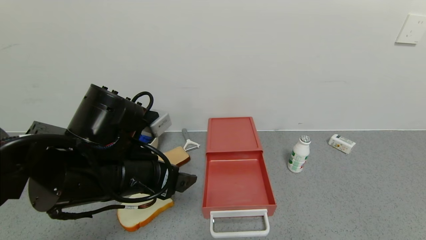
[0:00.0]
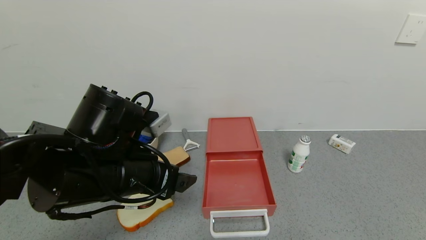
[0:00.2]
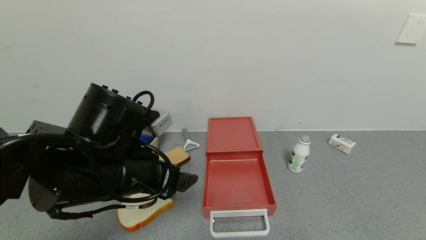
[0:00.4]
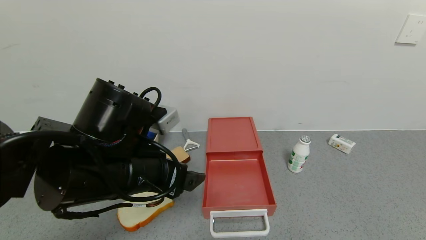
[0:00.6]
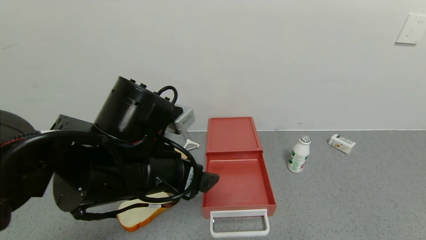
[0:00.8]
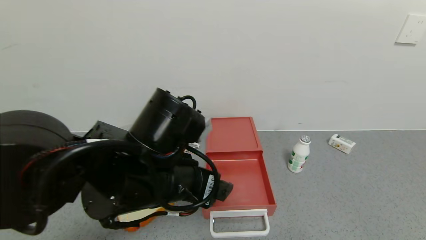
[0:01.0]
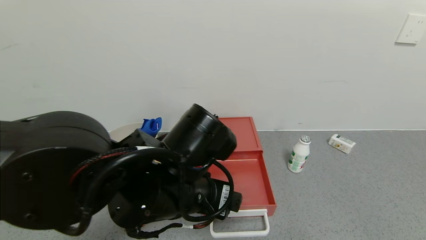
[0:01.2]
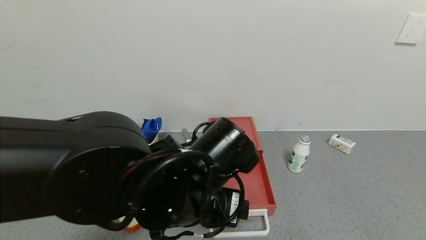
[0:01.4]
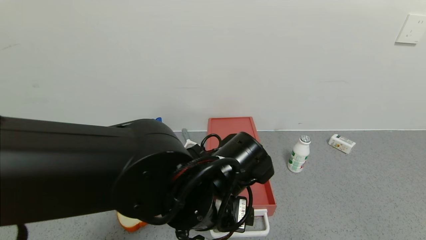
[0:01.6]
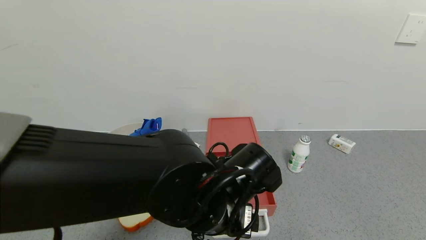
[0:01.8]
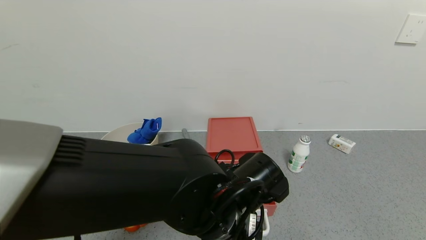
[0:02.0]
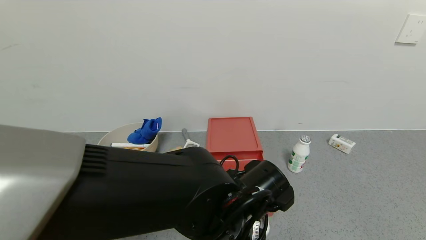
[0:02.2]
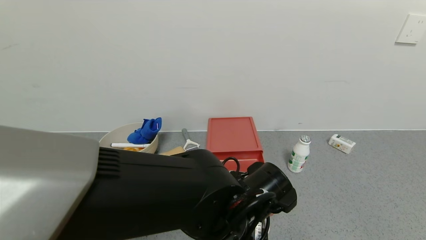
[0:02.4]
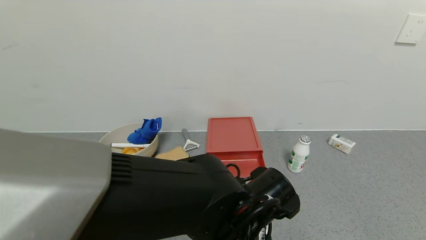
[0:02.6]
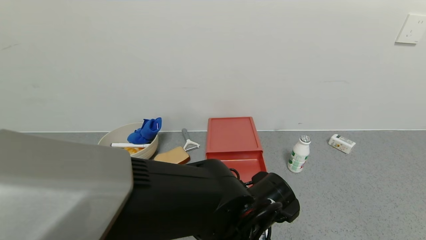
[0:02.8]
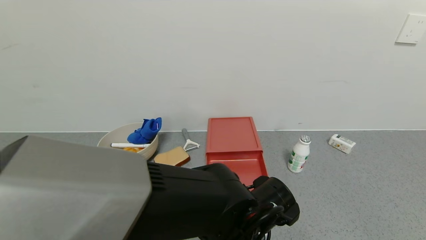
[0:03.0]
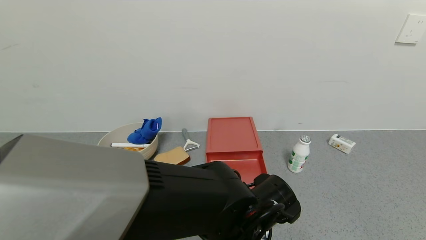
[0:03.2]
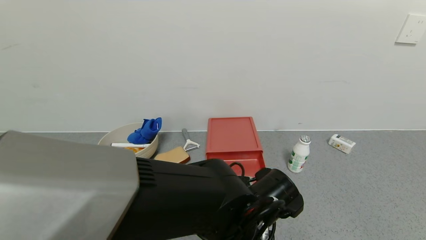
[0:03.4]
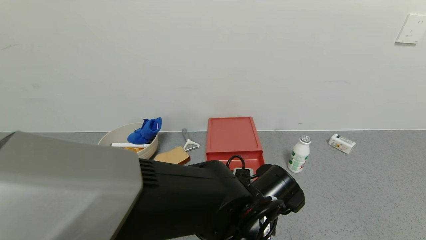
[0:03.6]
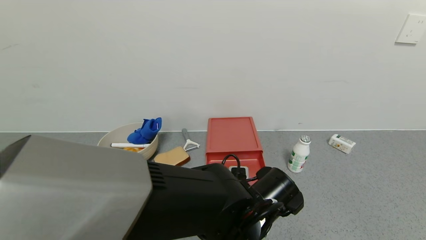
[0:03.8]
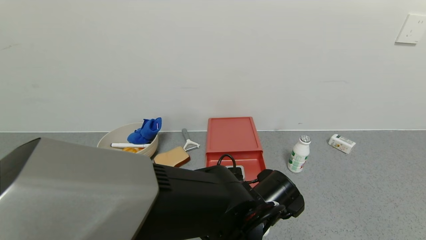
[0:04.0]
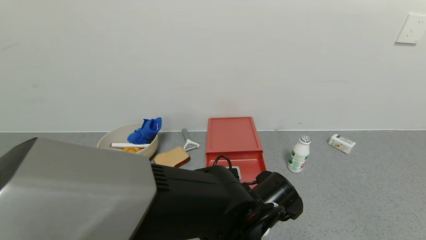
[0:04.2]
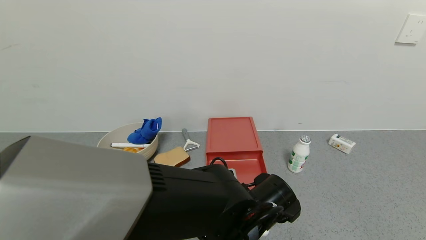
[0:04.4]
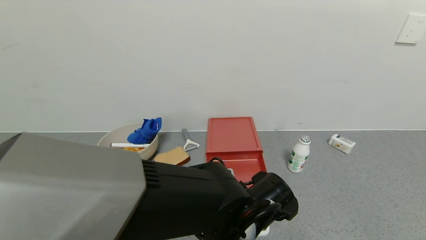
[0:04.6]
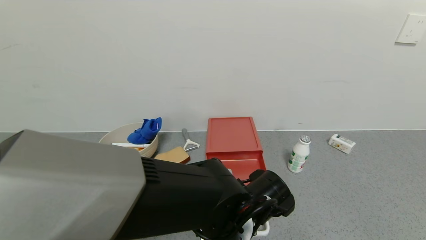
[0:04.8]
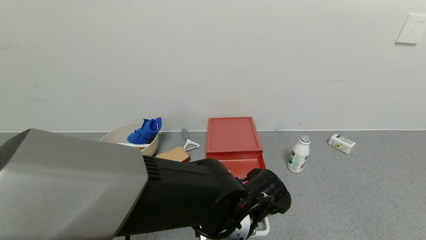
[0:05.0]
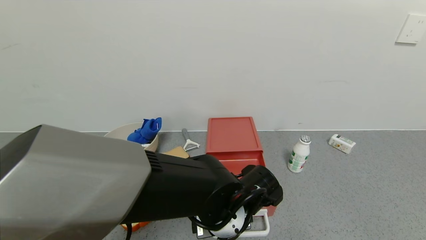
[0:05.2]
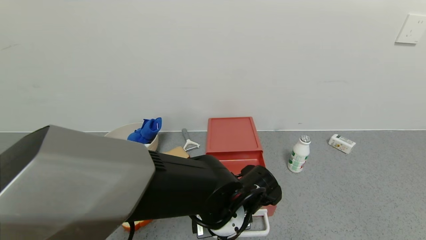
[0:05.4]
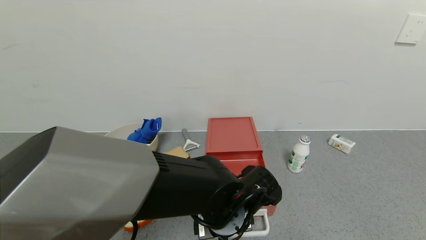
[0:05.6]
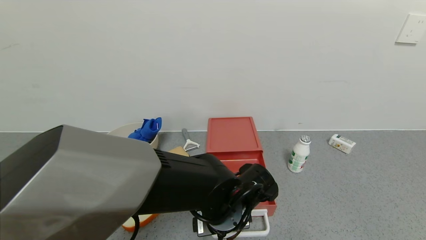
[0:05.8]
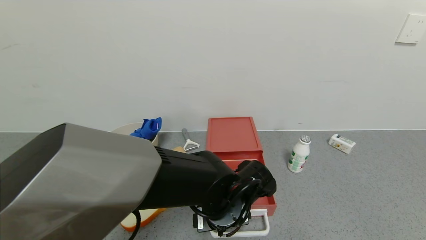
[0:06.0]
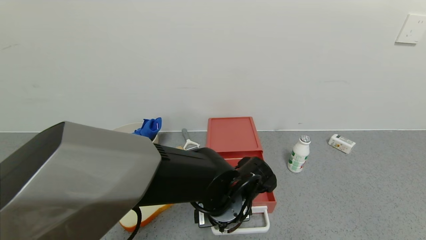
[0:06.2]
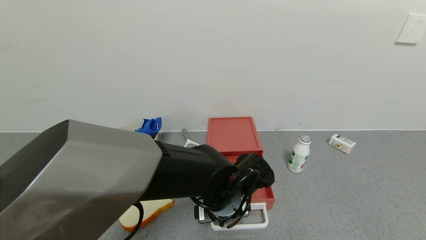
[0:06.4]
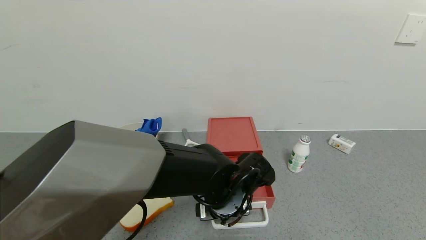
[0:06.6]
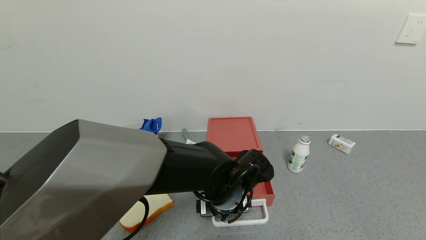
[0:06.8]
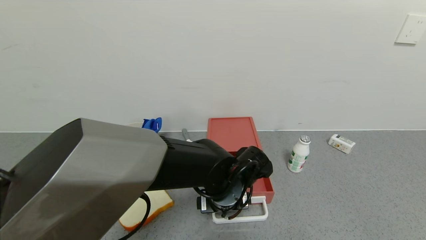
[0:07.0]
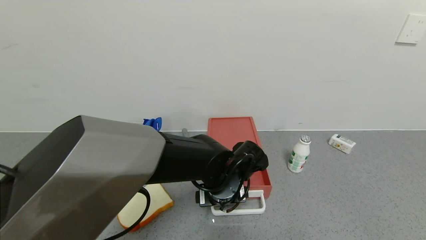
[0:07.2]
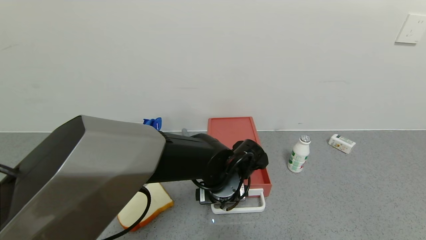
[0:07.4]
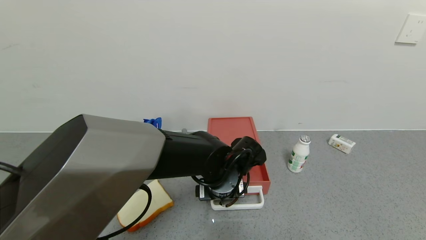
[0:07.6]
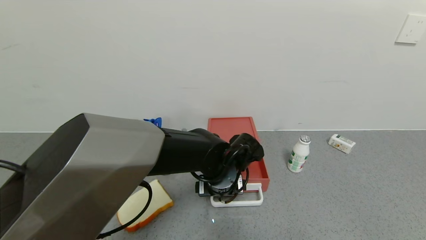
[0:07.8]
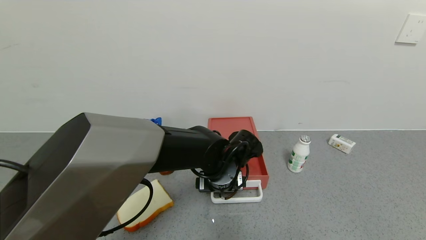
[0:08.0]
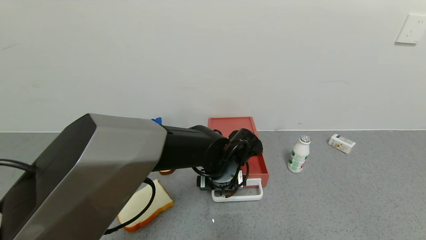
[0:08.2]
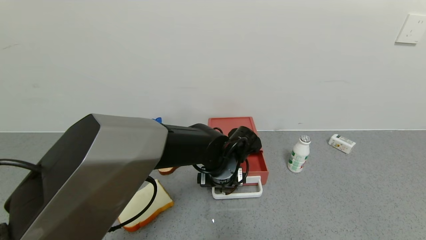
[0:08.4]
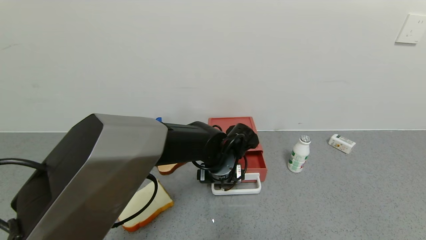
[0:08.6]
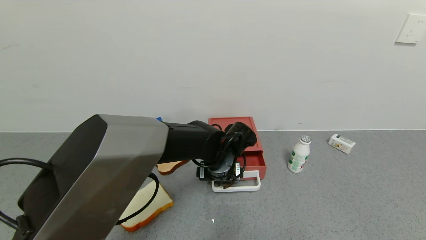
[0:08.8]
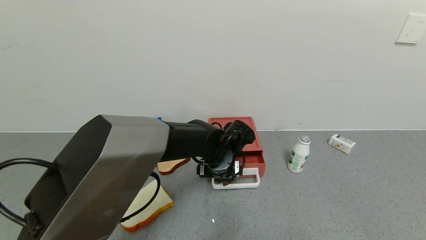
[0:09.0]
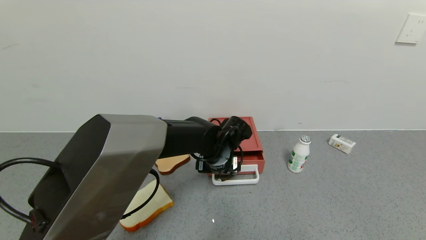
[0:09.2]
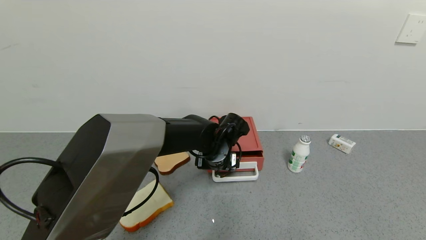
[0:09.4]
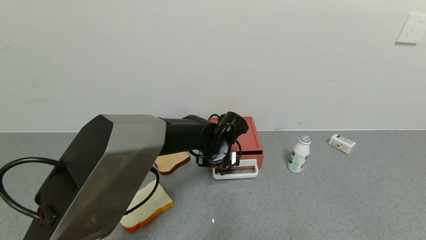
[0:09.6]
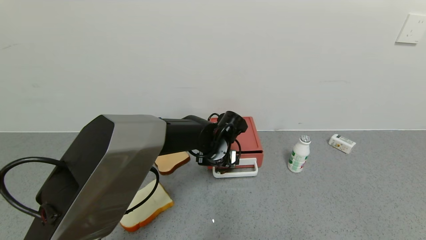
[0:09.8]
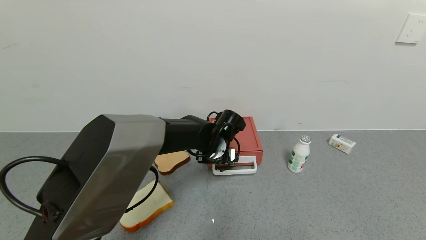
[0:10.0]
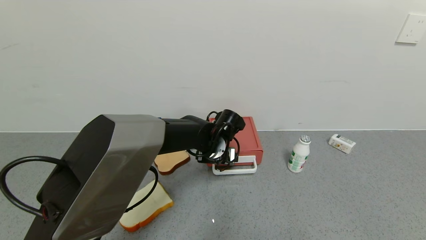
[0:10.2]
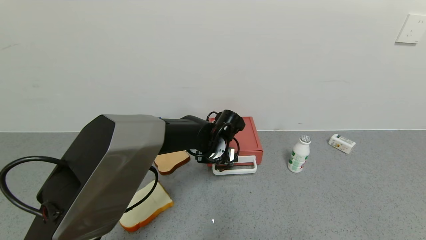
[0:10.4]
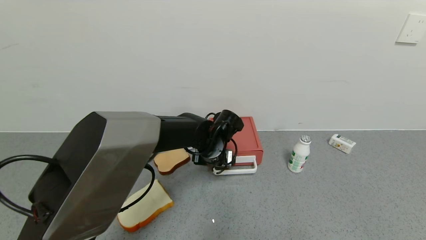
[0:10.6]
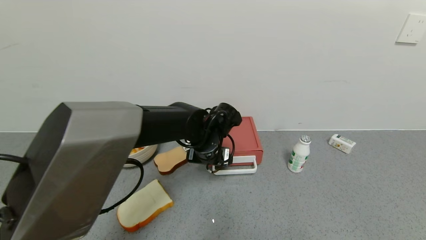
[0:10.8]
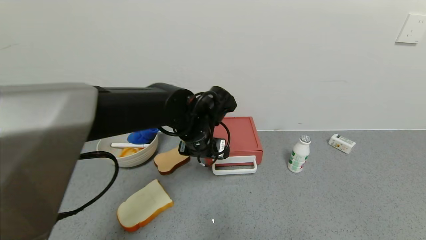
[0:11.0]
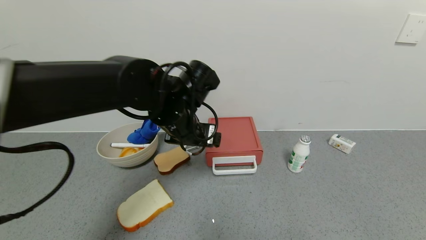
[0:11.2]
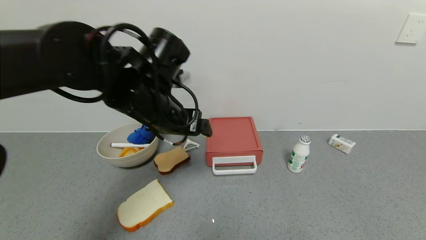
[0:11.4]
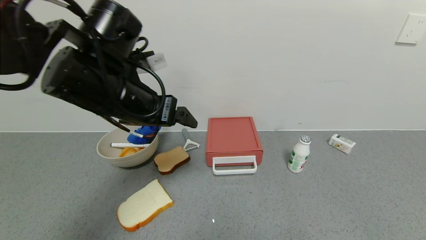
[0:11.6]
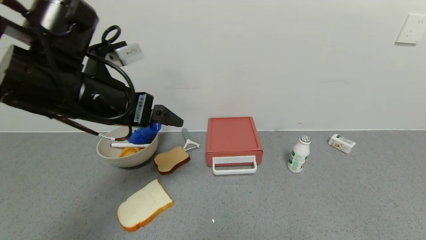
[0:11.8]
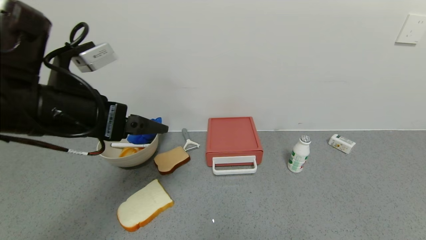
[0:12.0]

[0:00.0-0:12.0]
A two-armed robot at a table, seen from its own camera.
Task of the whole recording: use the gripper to open the drawer and close the red drawer.
Step, 0:00.0 to 0:10.6: Close the red drawer with the left gripper.
0:00.0 to 0:01.6: The left gripper goes approximately 10 cm to the right.
0:01.6 to 0:03.0: The left gripper travels downward by some 5 cm.
0:04.4 to 0:06.0: The grippers make only small movements.
0:06.0 to 0:07.6: The left gripper goes about 5 cm forward.
0:07.6 to 0:09.0: The left gripper is displaced forward by some 5 cm.
0:09.0 to 0:10.4: There are only small adjustments of the grippers.
0:10.4 to 0:12.0: The left gripper shifts some 30 cm to the left, upward and backward.

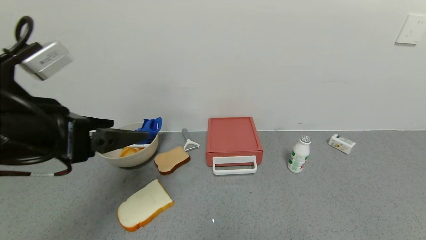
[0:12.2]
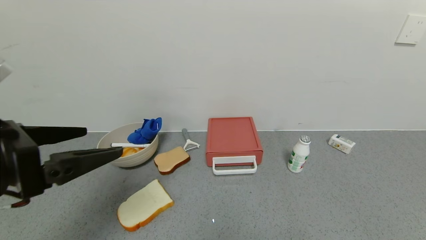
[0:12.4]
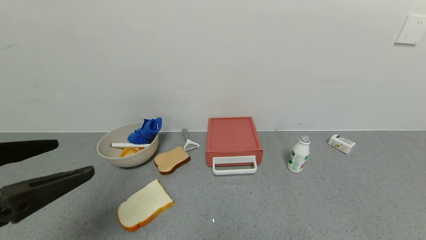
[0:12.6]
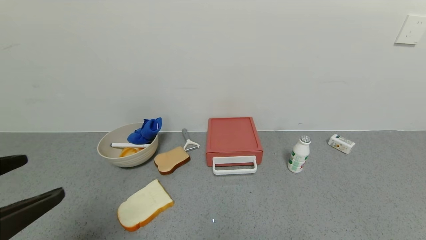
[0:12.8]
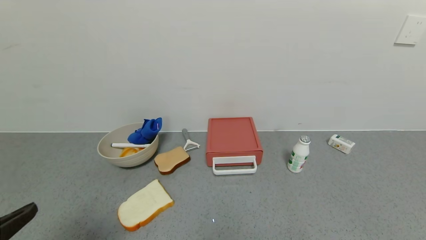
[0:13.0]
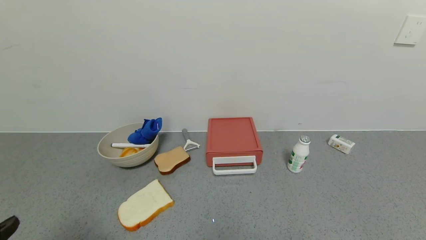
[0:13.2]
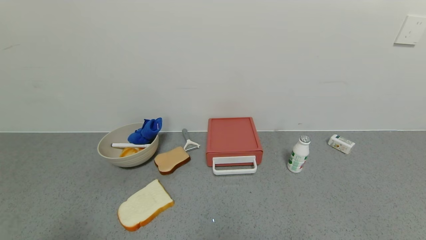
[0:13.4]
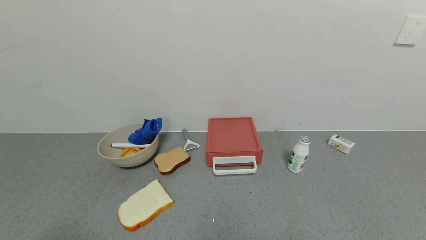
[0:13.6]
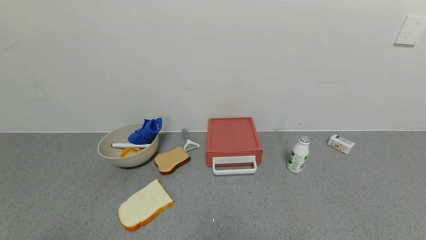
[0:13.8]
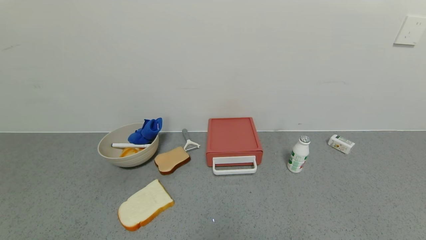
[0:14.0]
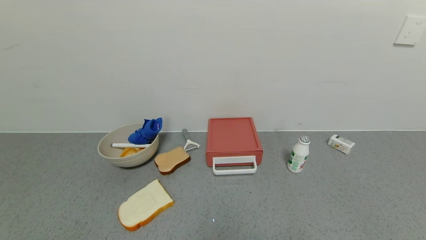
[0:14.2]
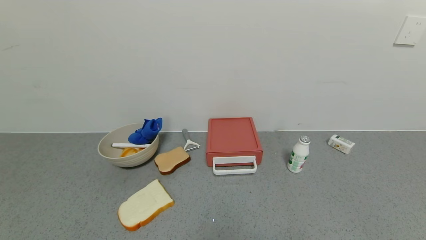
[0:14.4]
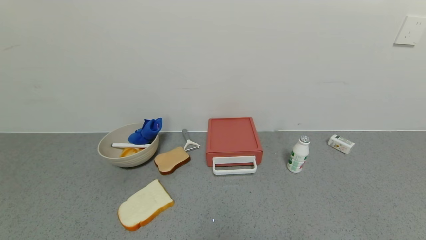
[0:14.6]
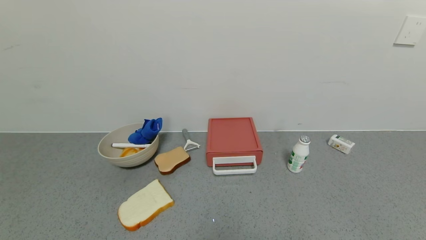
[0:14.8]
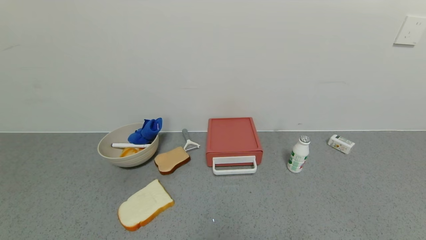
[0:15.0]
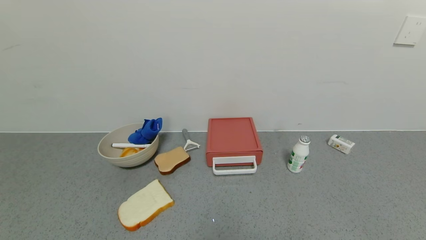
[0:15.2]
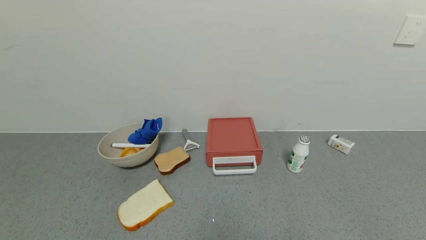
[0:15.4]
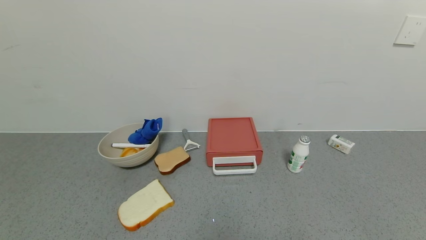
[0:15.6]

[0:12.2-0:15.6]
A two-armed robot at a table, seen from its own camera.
Task of the whole recording: use the gripper to open the drawer and close the red drawer.
0:12.2 to 0:13.8: The left gripper moves backward, roughly 20 cm.
